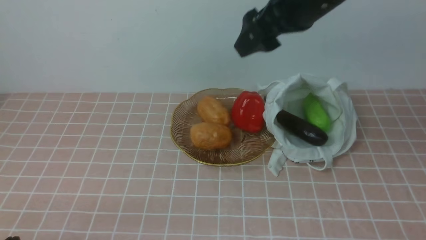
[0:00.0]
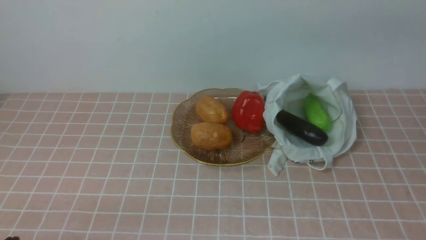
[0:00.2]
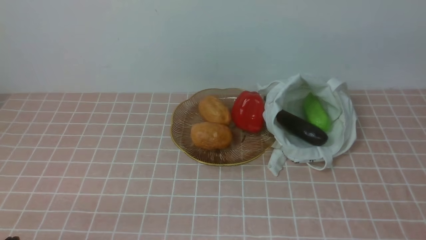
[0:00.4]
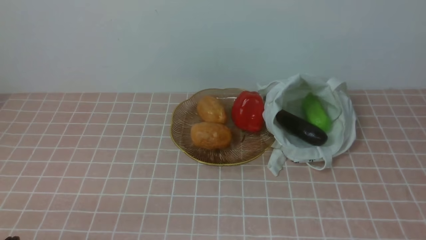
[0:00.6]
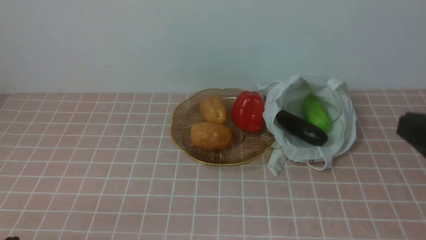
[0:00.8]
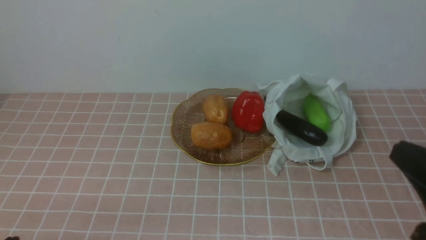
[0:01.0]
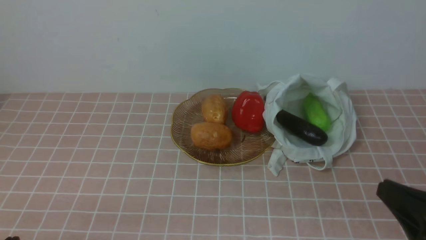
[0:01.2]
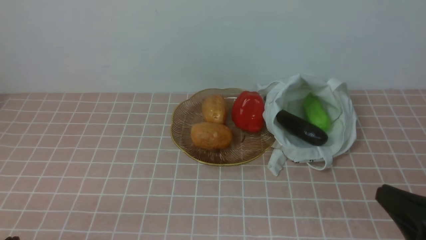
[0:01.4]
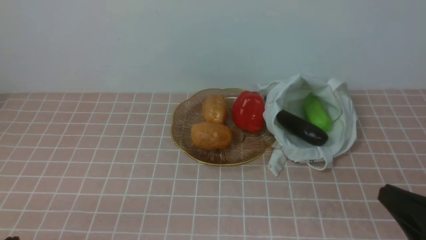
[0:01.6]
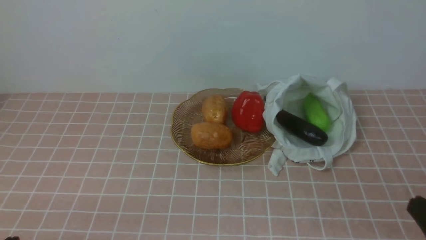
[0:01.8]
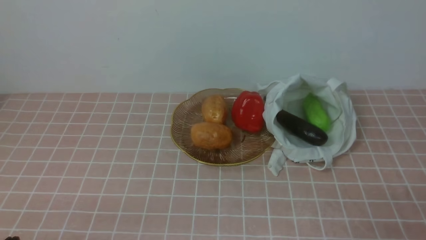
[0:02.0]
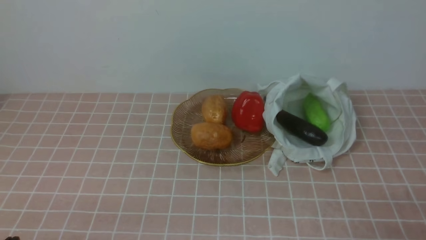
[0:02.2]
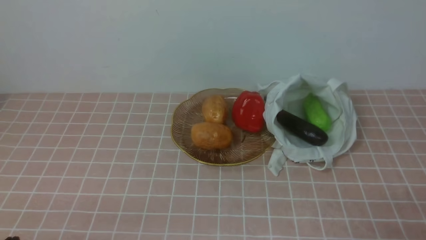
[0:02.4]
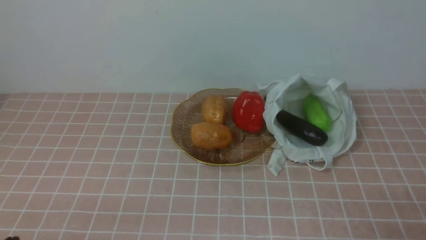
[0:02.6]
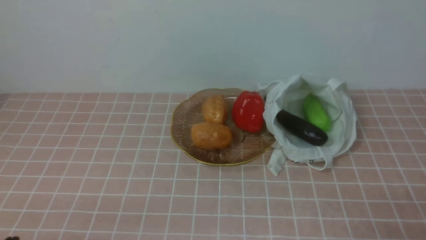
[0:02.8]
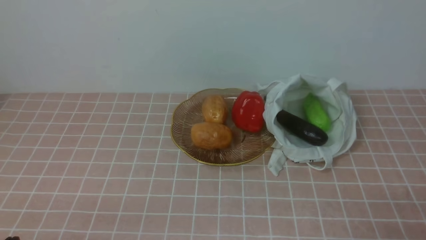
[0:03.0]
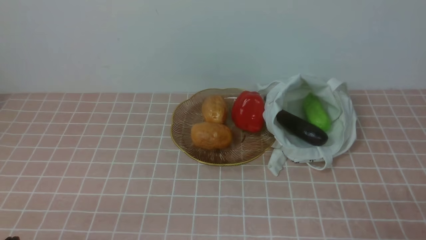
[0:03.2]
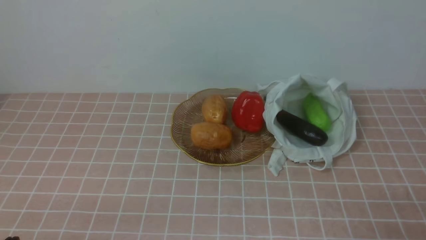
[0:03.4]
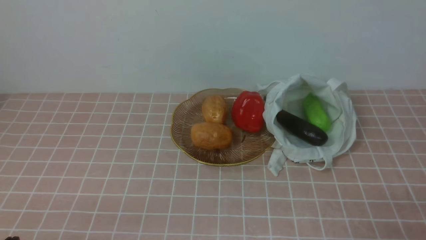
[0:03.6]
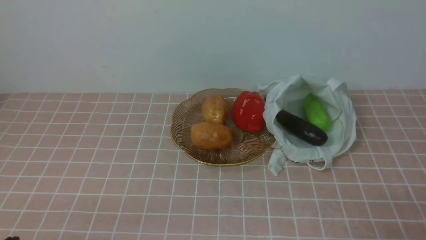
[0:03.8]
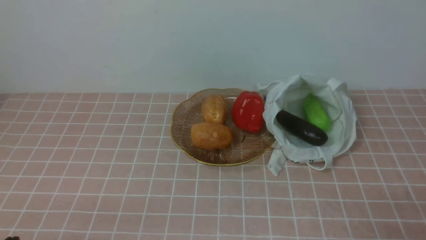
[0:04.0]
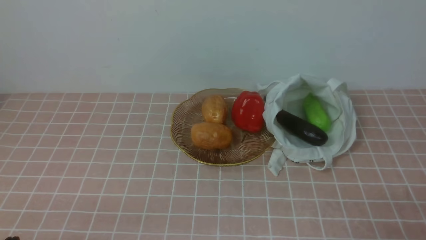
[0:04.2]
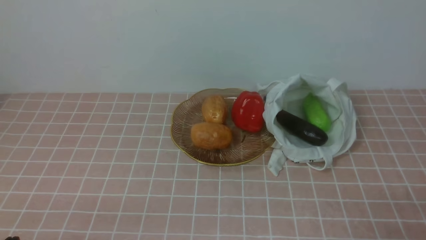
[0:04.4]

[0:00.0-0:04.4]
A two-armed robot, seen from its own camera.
Task of the whole recording: take vegetables from bag on pink coffee tablecloth place on plate.
0:00.0 to 0:01.4: The right gripper shifts approximately 35 cm backward, to the right and downward, and closes up.
0:01.4 to 0:03.0: The right gripper moves downward, roughly 5 cm.
0:03.0 to 0:04.4: The two grippers keep their place.
